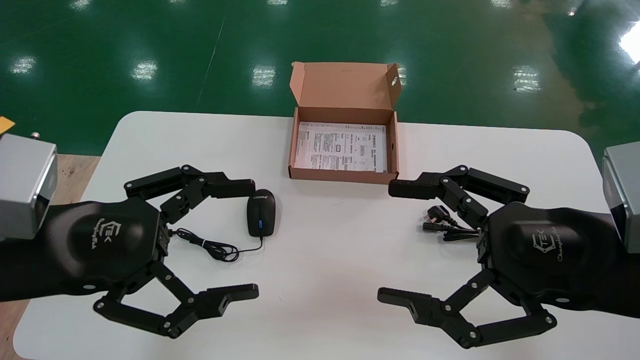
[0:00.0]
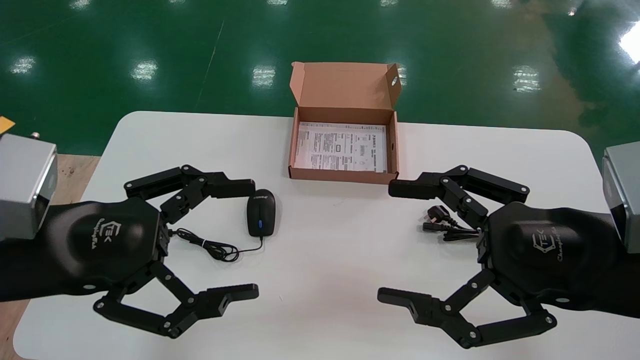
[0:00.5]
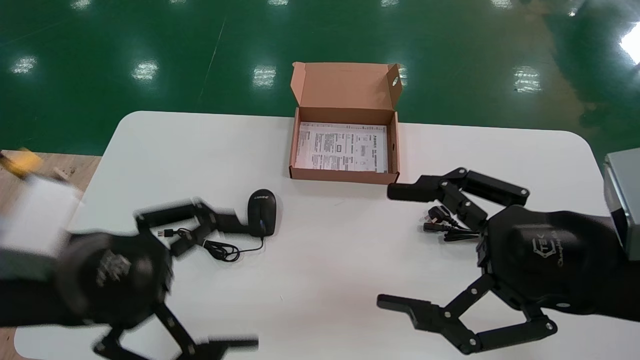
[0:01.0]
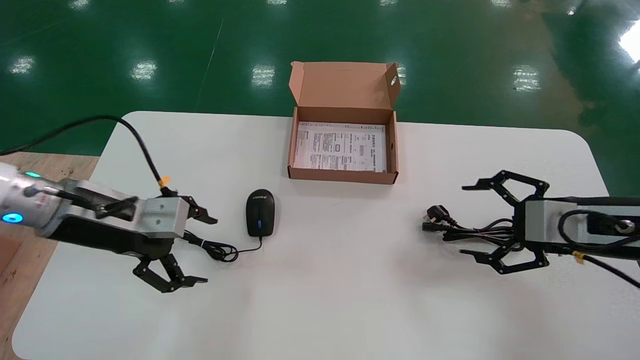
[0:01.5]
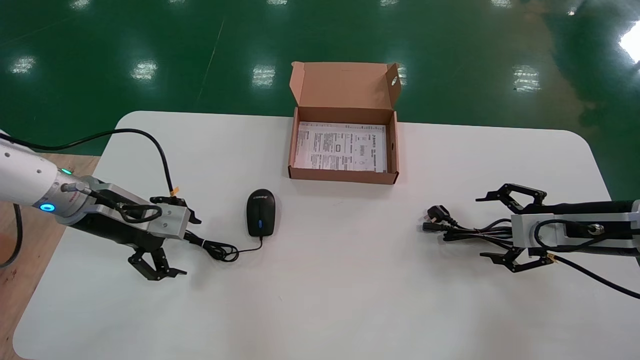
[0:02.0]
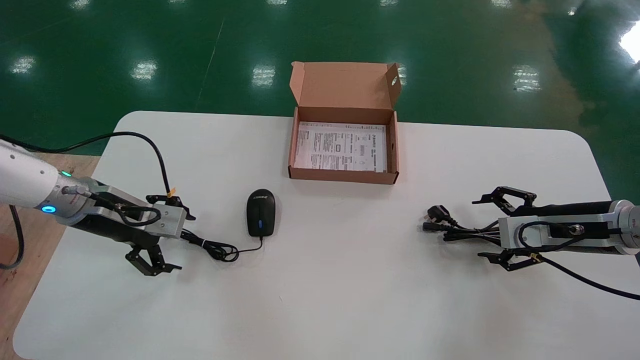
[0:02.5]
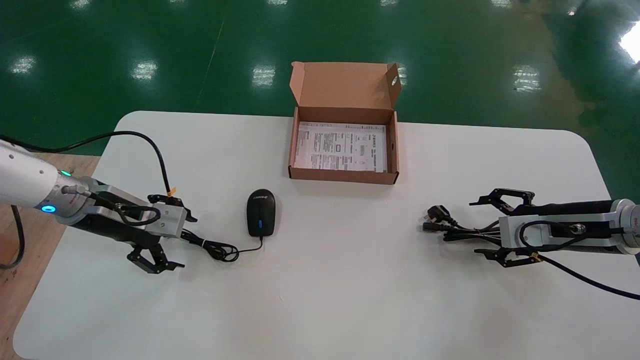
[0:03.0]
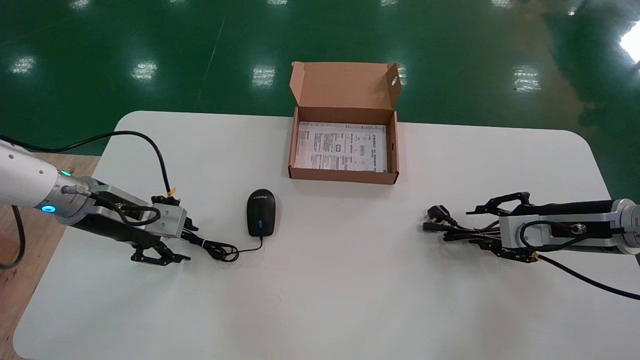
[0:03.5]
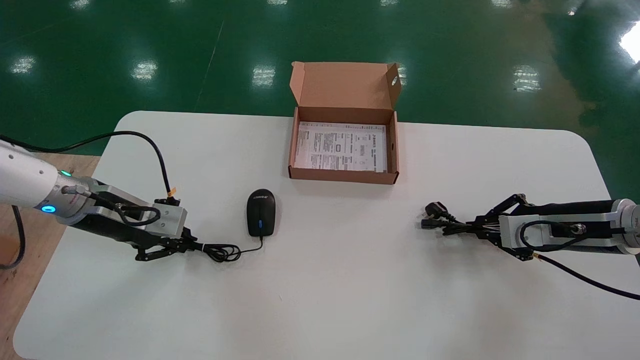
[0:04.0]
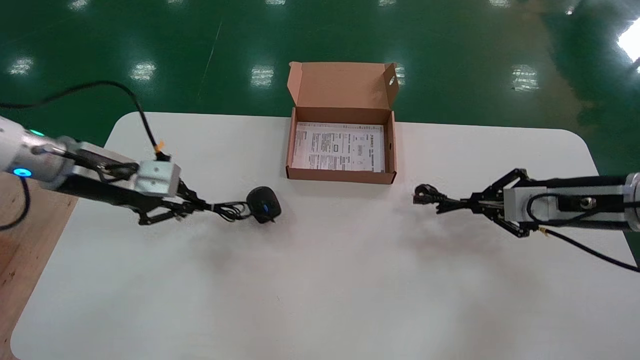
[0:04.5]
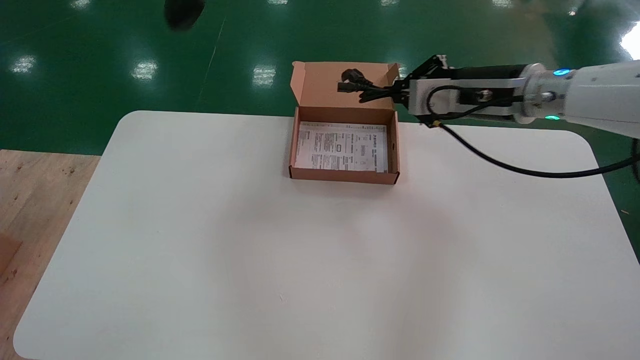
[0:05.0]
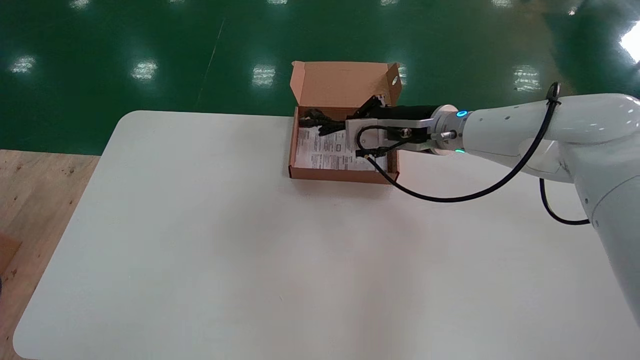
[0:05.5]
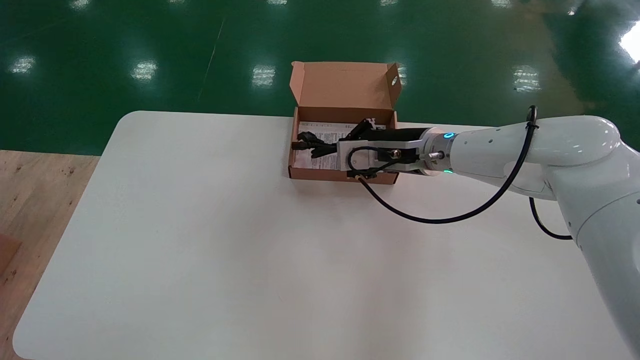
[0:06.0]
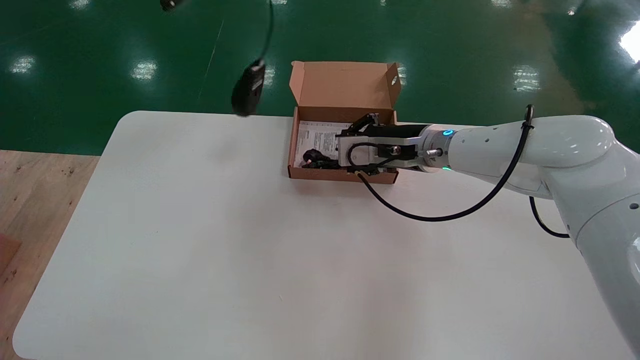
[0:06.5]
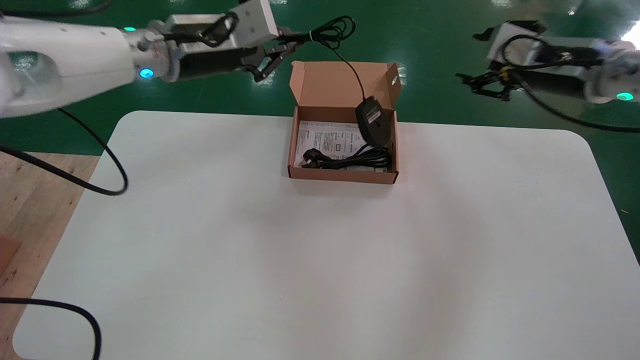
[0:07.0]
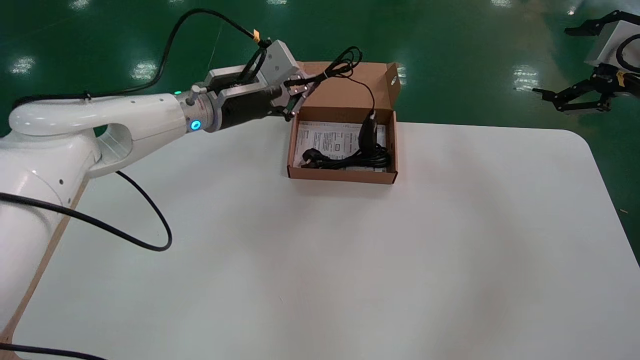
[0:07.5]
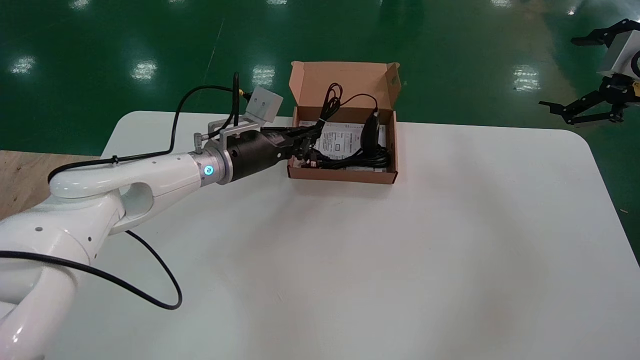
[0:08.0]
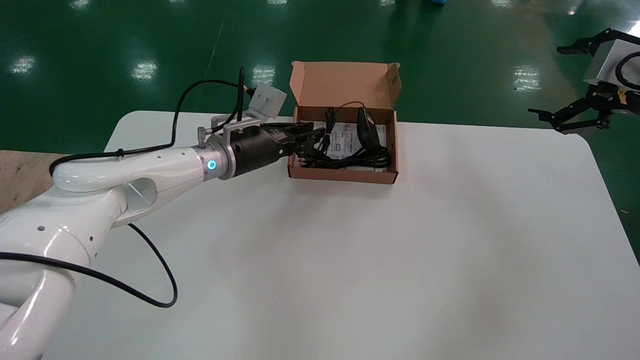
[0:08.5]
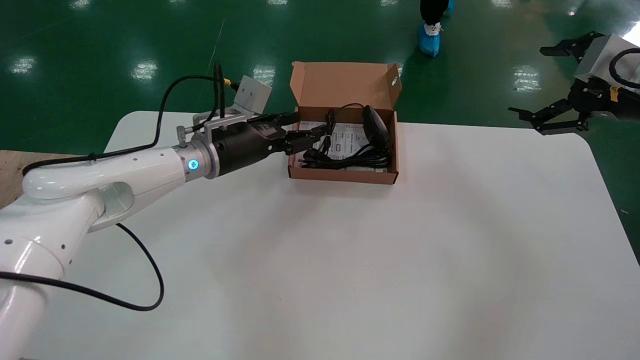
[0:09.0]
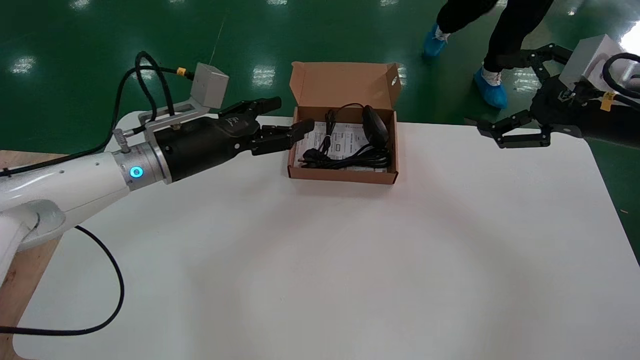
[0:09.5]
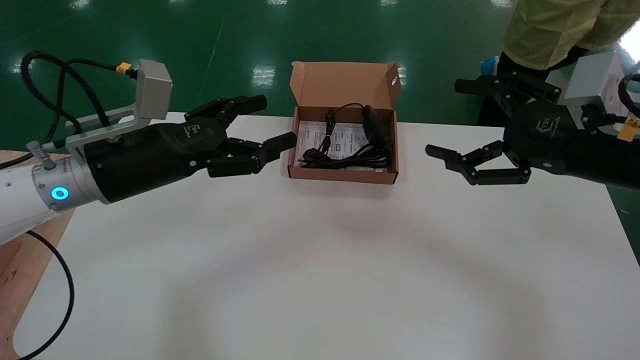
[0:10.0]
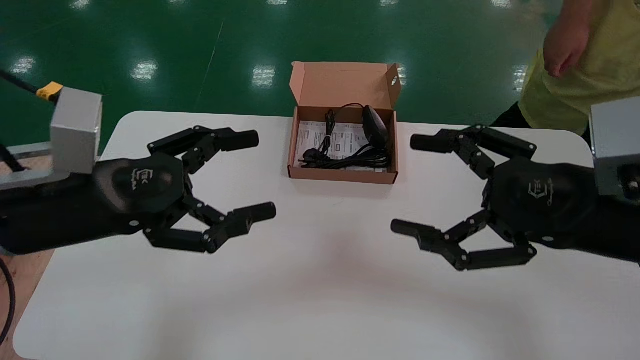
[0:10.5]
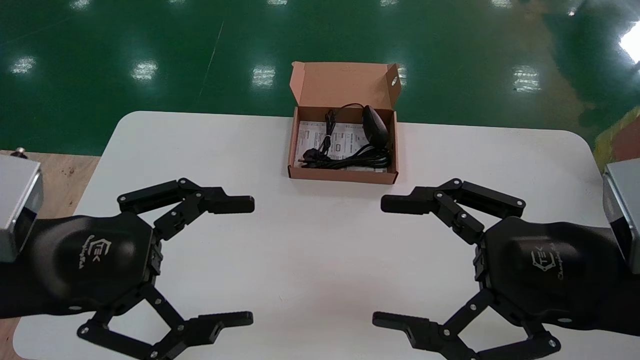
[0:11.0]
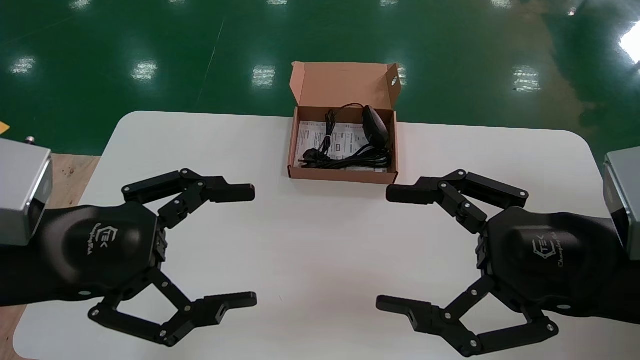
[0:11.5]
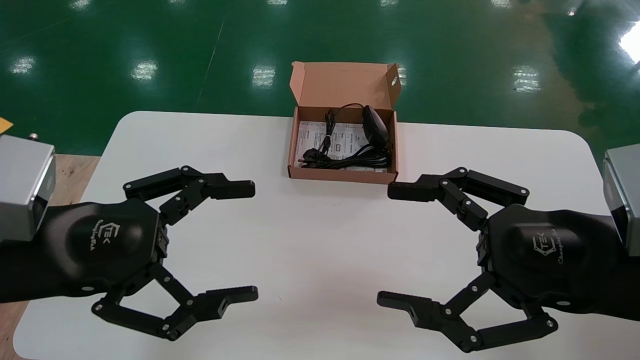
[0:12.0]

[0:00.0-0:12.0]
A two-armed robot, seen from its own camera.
Step, 0:01.0 to 0:04.0: Simultaneously pick up the mouse and power cord from the accessory packaging area.
Step, 0:04.5 to 0:08.5: Place the mouse and power cord into the box.
0:00.0 to 0:02.0: The left gripper goes approximately 20 cm forward. Meanwhile the right gripper goes approximately 20 cm forward and to the right.
0:02.0 to 0:04.0: The right gripper closes. Meanwhile the left gripper closes up.
0:04.0 to 0:06.0: The left gripper shifts approximately 35 cm upward; the right gripper heads to the left, covering some 25 cm.
0:06.0 to 0:08.0: The right gripper goes about 30 cm to the right, and opens its fingers; the left gripper moves downward, forward and to the right, approximately 35 cm.
0:08.0 to 0:10.0: The right gripper goes approximately 15 cm to the left, backward and downward; the left gripper goes some 20 cm backward and to the left, and opens its fingers.
0:10.0 to 0:12.0: The left gripper is displaced backward by approximately 15 cm; the right gripper travels backward and to the left by some 10 cm.

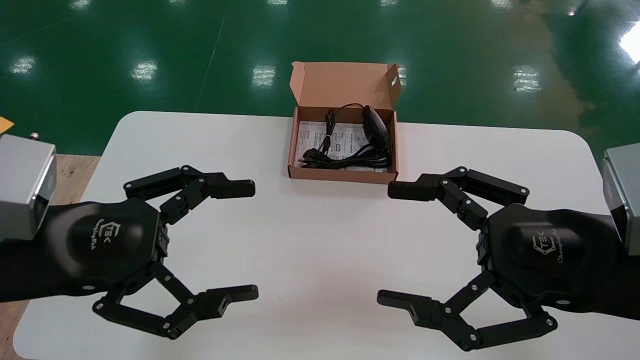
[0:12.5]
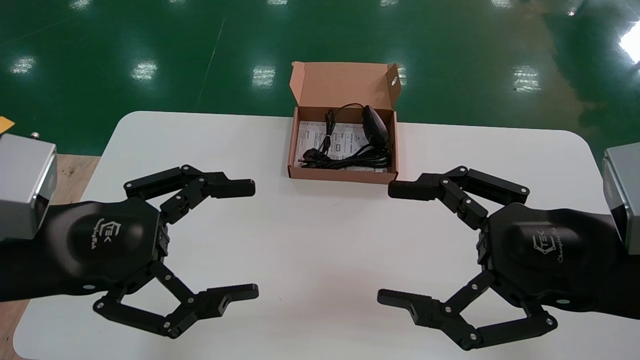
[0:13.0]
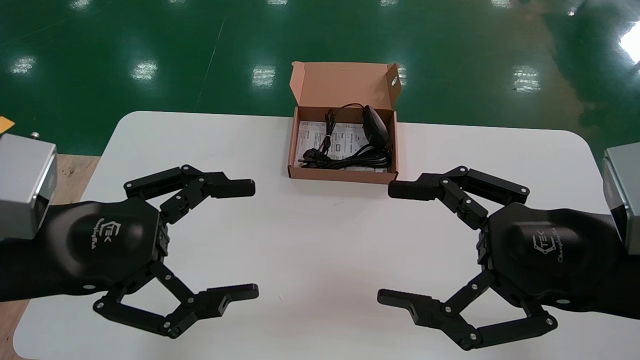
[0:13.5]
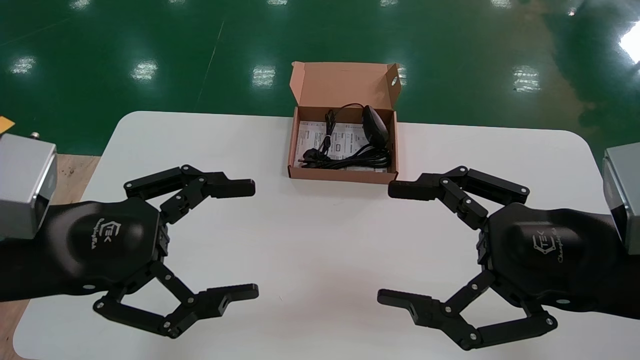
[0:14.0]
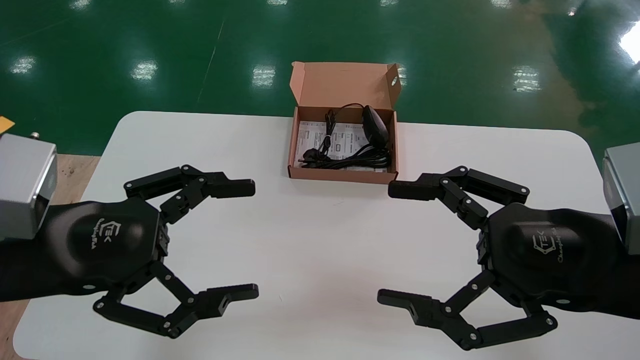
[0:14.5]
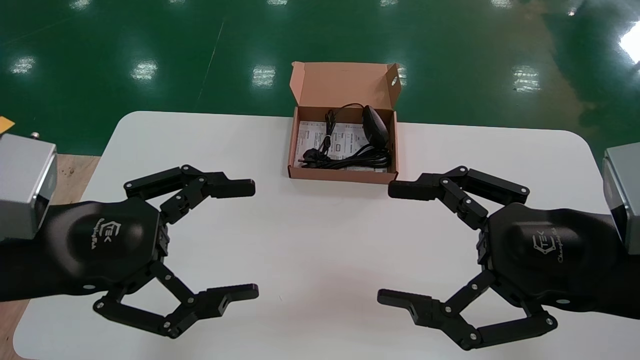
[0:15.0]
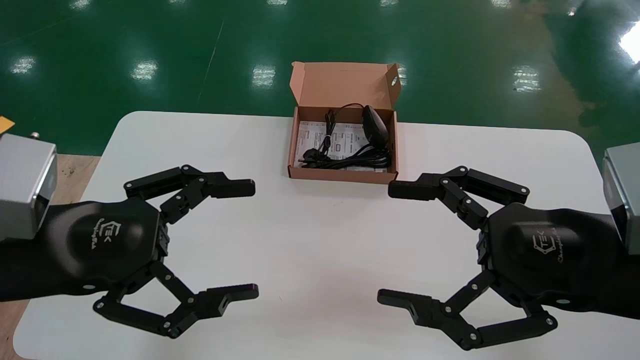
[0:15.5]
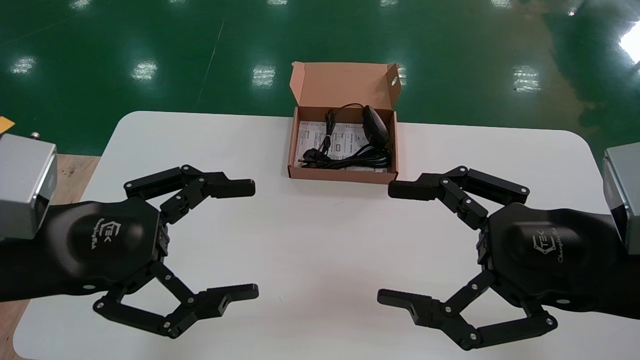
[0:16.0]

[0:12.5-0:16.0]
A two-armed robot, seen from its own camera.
0:12.5 to 0:16.0: The two grippers keep their place.
